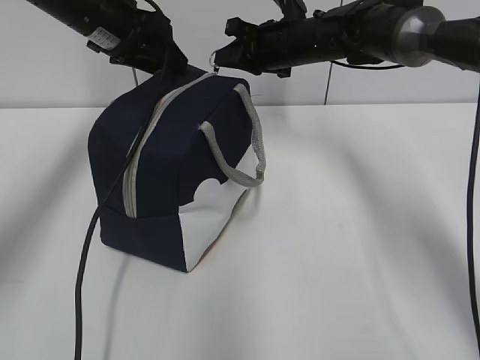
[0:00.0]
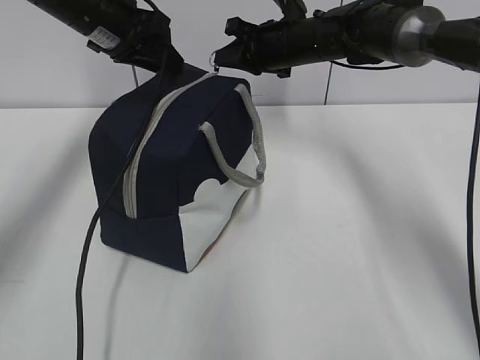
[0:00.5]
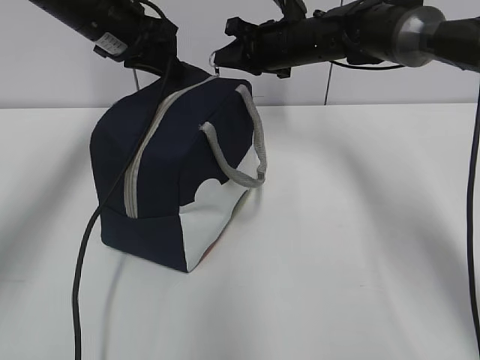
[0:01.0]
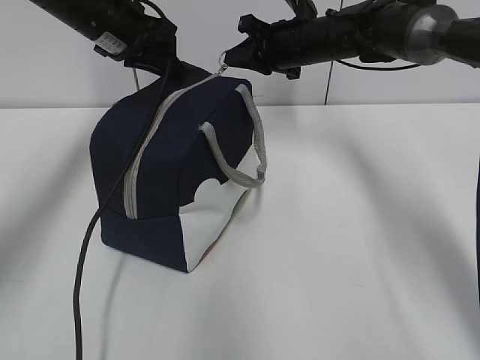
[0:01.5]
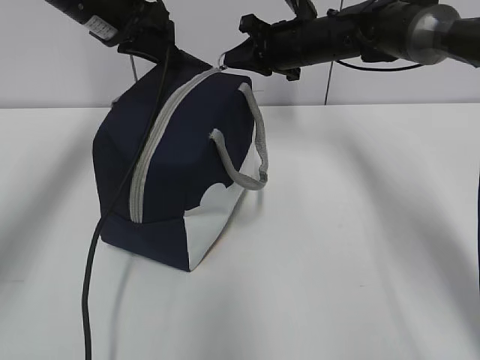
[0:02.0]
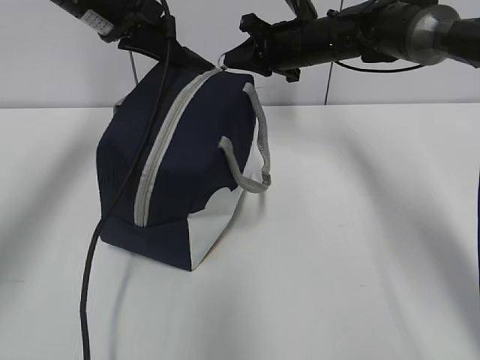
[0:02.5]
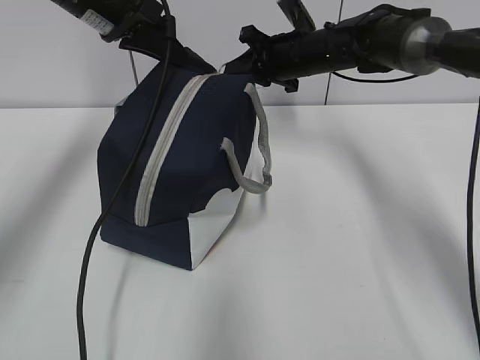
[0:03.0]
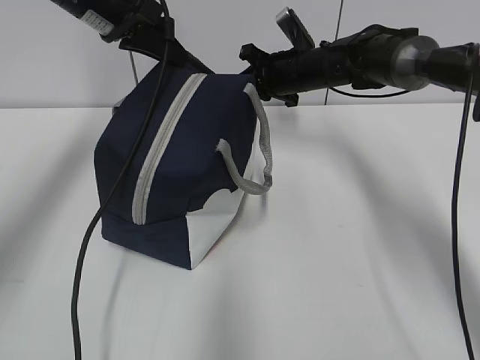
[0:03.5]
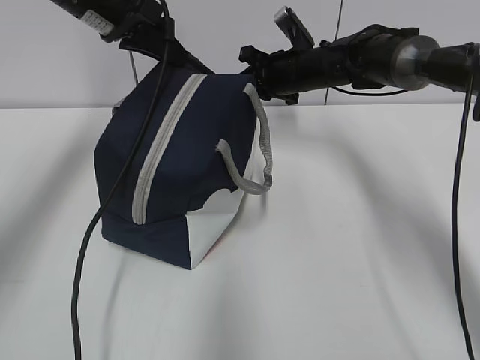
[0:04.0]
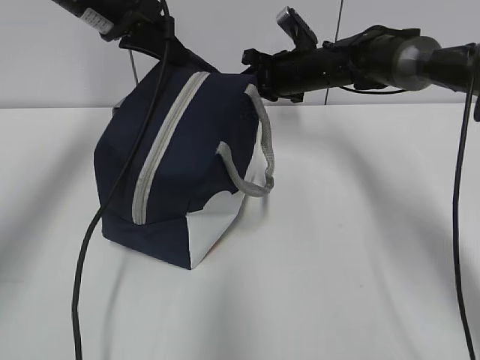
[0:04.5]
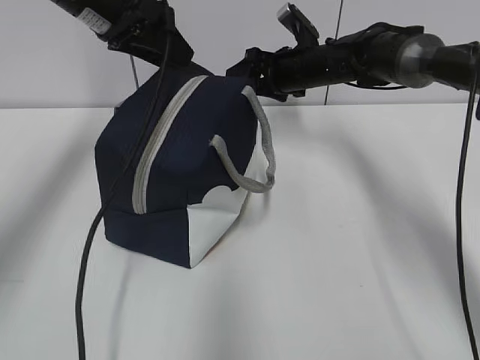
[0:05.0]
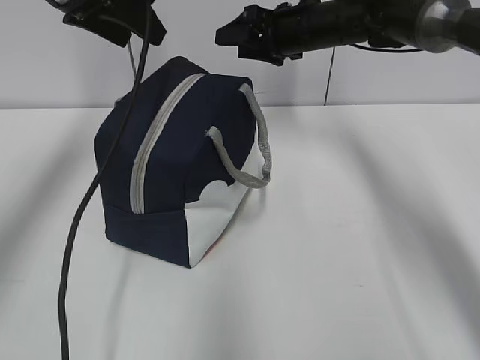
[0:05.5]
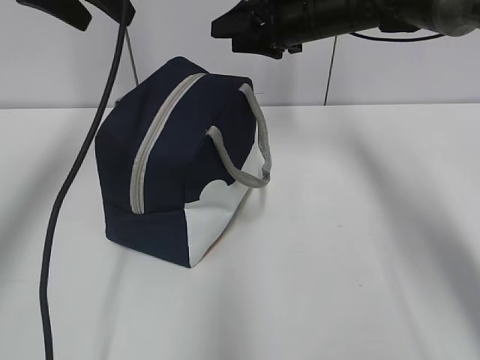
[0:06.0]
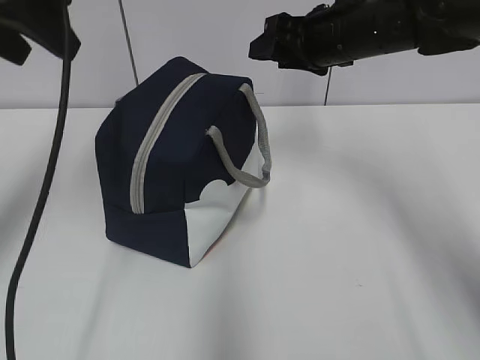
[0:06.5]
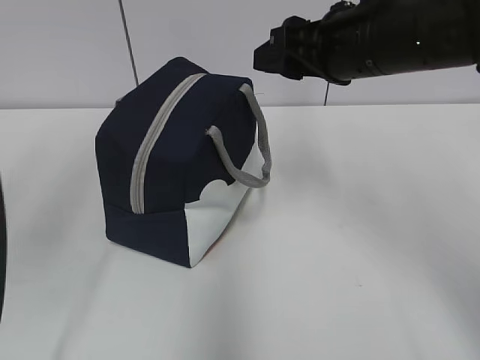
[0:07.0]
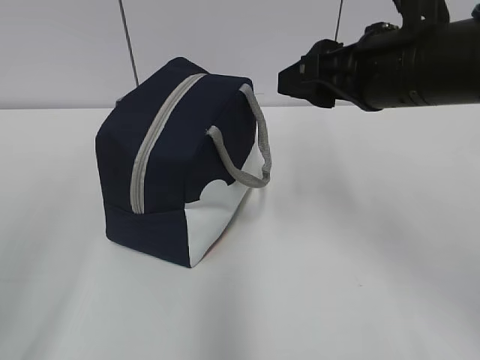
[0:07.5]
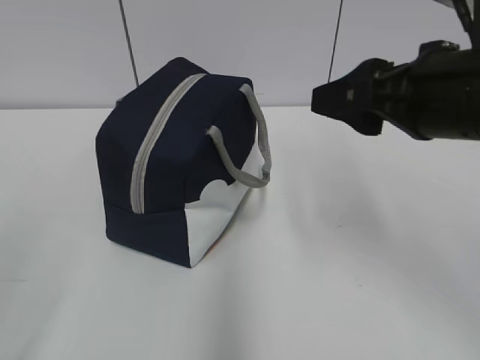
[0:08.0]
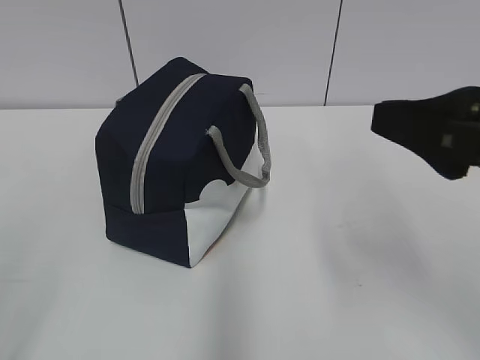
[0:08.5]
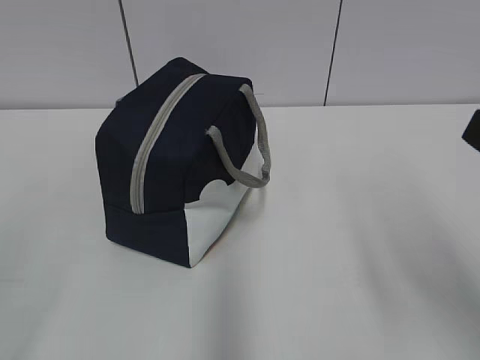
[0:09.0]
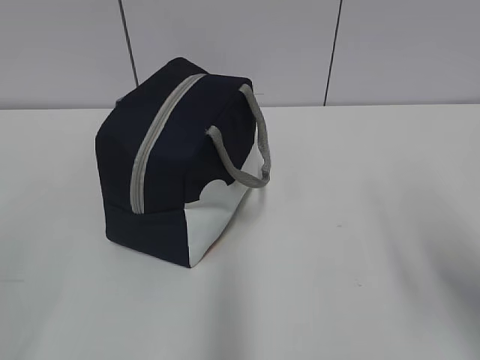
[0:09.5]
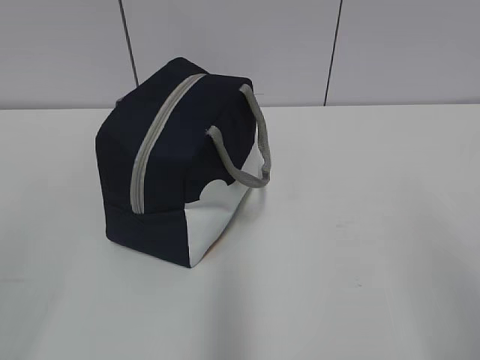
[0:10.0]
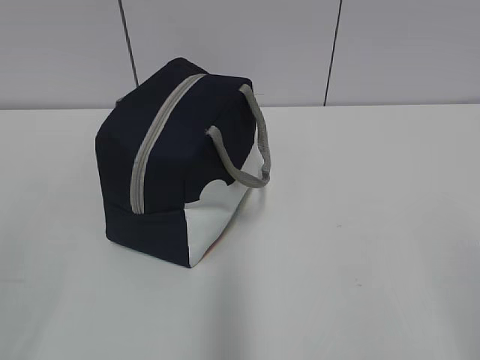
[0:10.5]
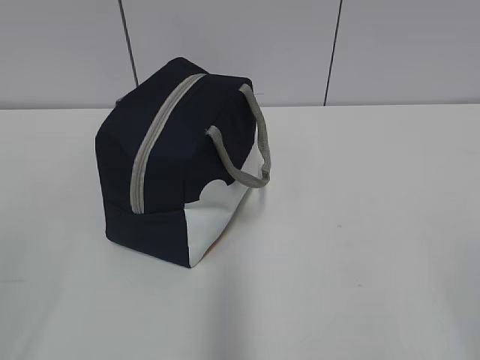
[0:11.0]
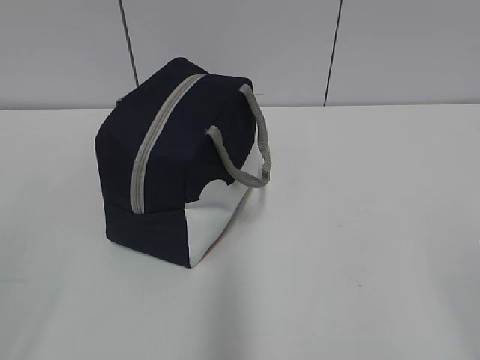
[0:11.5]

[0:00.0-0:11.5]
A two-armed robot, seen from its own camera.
Step, 0:00.0 to 0:04.5: Pull the zipper with your right hand.
0:00.0 to 0:02.0: The left gripper closes.
0:02.0 to 0:04.0: The grippers make only small movements.
0:04.0 to 0:06.0: Both grippers move upward, about 10 cm. The right gripper opens its fingers; the left gripper opens.
0:06.0 to 0:07.5: The grippers both shift backward by roughly 25 cm.
0:07.5 to 0:09.5: The left gripper moves backward, roughly 5 cm, while the right gripper heads backward and to the right, covering roughly 20 cm.
0:09.5 to 0:11.5: The right gripper heads backward, covering approximately 15 cm.

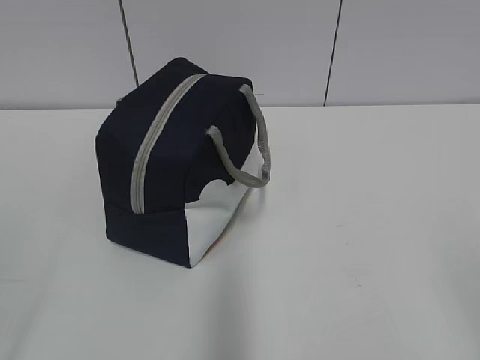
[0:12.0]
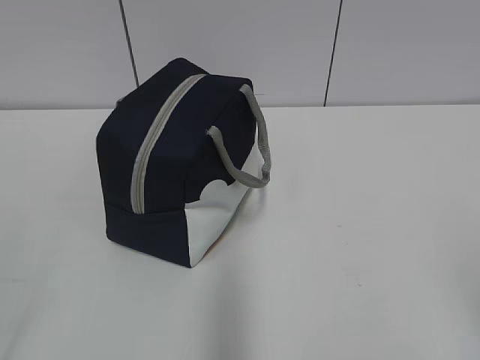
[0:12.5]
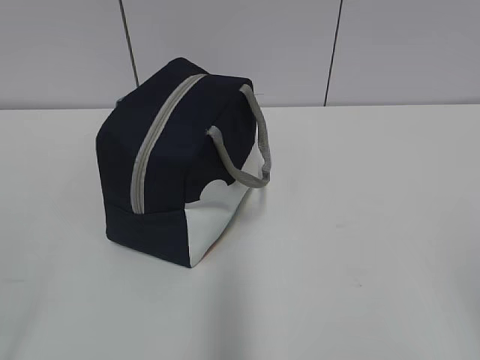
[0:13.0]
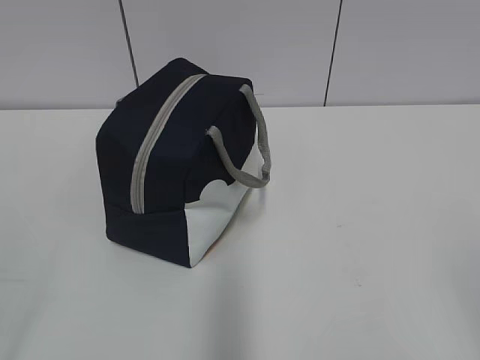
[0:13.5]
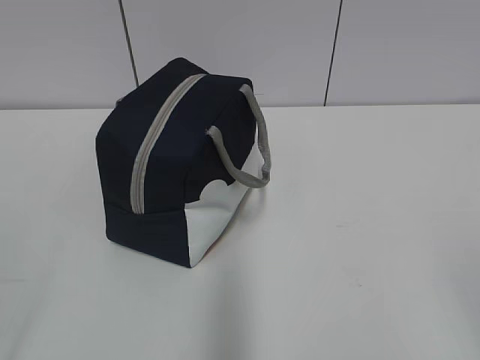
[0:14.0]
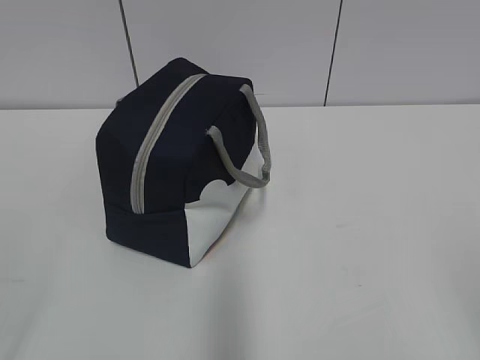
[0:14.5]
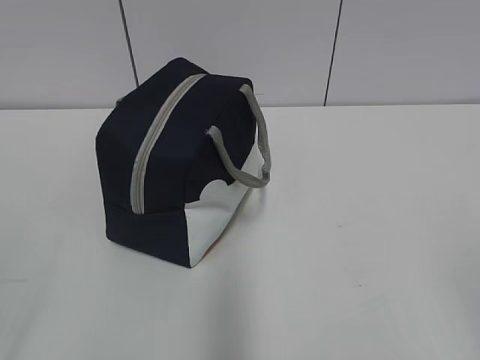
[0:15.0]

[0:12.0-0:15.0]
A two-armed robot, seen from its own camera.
0:13.5 to 0:15.0: The two grippers keep their place.

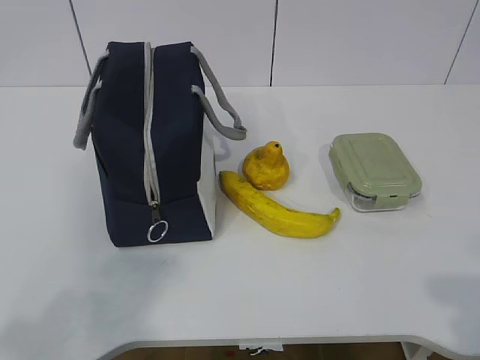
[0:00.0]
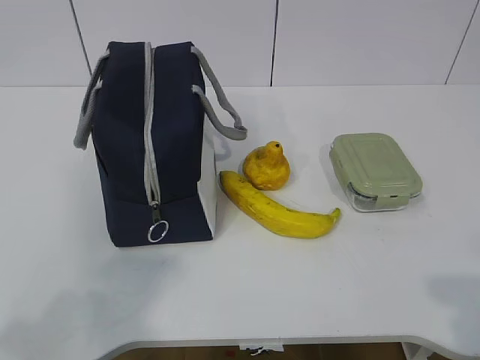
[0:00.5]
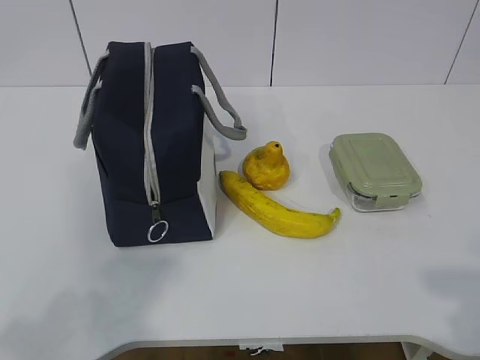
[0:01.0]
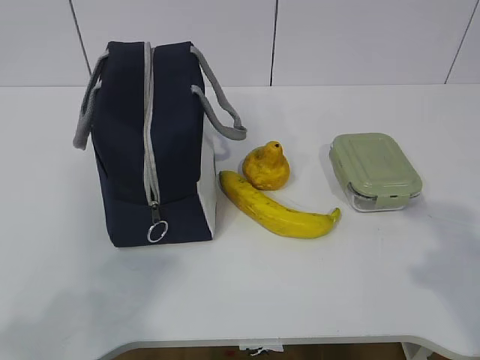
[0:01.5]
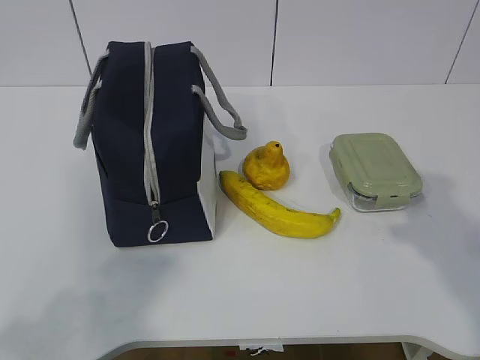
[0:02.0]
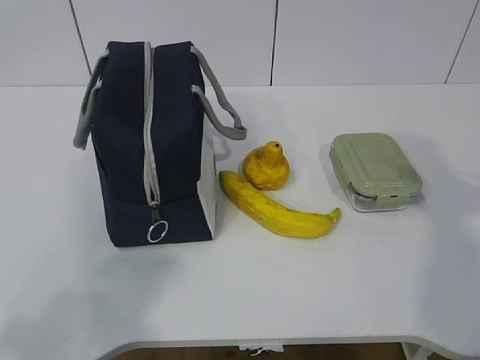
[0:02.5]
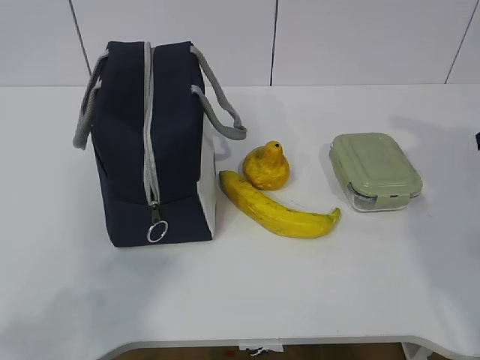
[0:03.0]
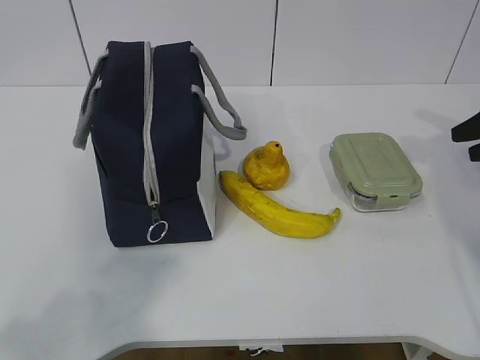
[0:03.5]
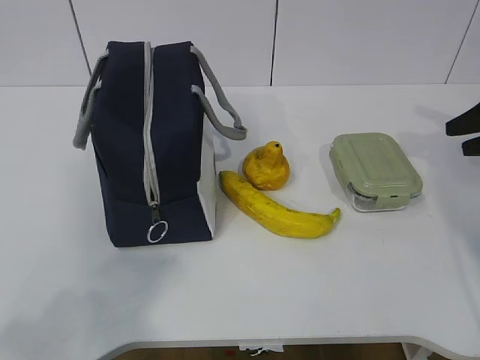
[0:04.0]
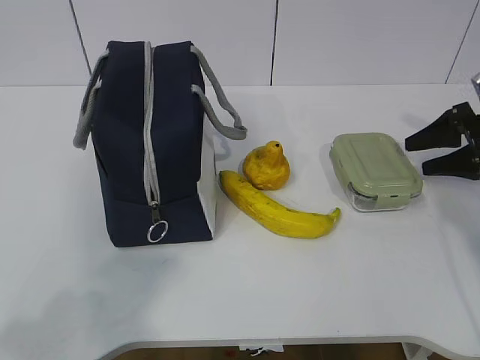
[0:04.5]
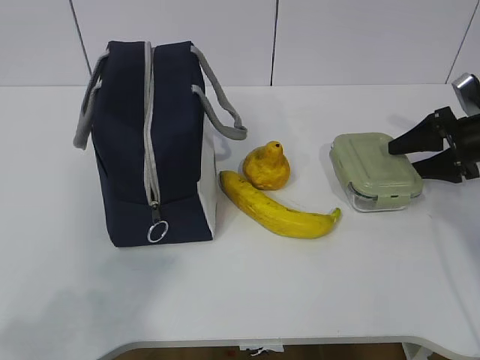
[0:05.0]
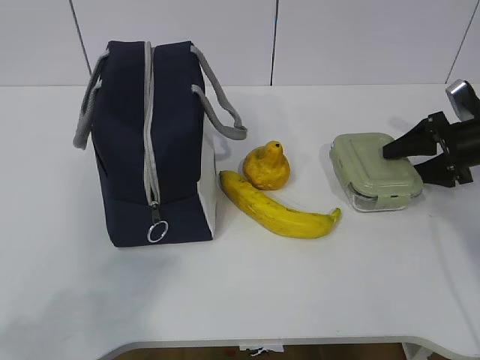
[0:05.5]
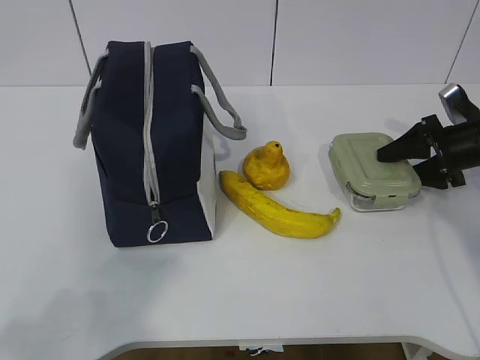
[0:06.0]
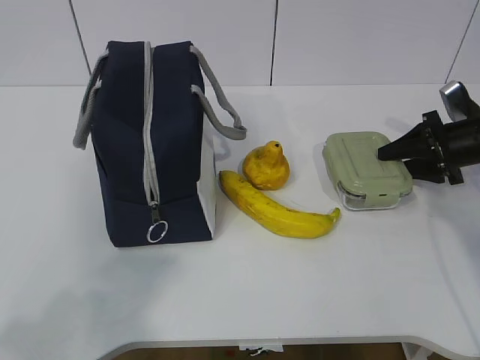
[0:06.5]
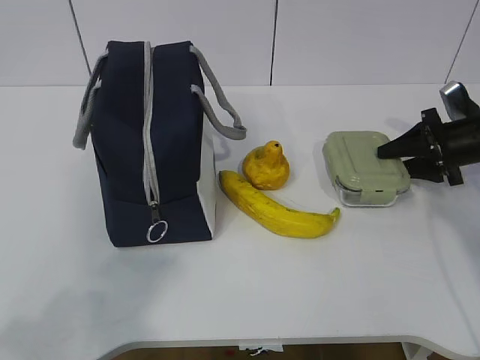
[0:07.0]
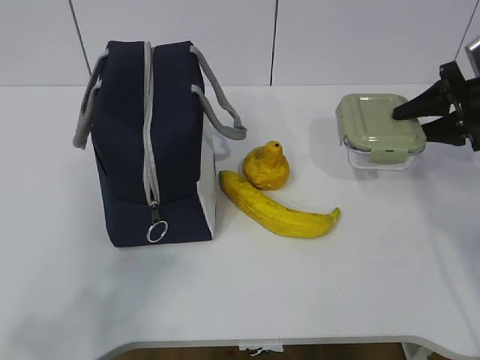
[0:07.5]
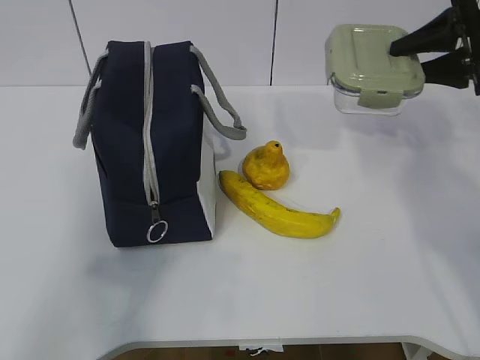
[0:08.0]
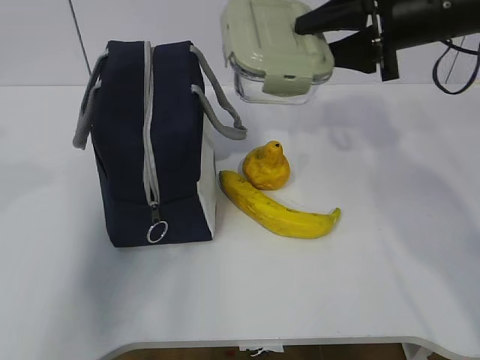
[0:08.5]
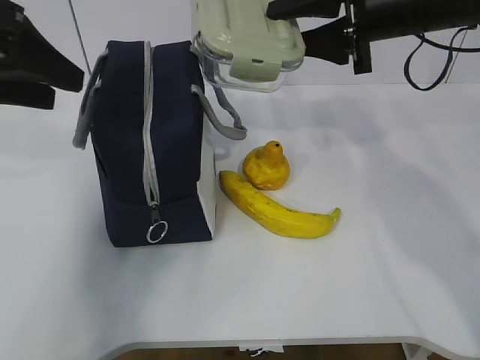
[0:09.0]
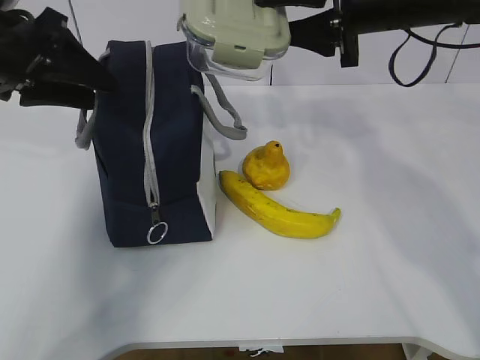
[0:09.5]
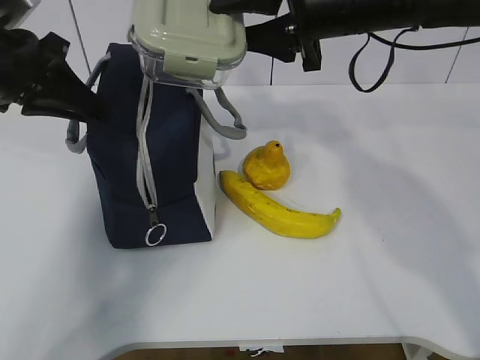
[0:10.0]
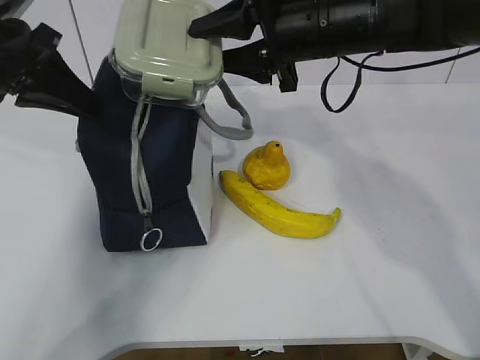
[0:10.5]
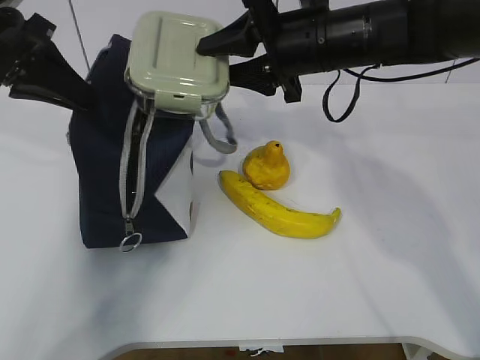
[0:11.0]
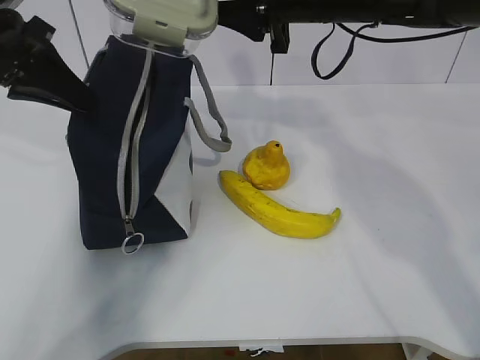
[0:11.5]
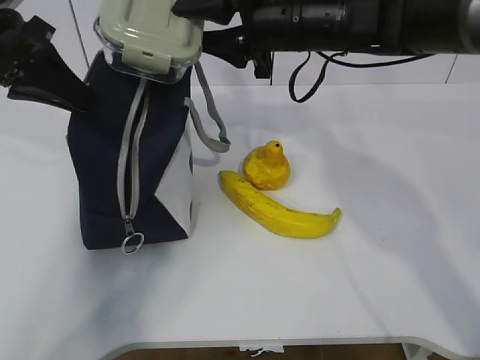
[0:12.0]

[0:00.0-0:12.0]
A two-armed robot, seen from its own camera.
Step, 0:00.0 to 0:05.5: Grab the lunch box with your right hand.
Step, 0:06.0 to 0:08.5: Grab the lunch bag with your left hand.
0:02.0 to 0:04.0: The right gripper heads forward and to the right, covering about 25 cm.
0:04.0 to 0:06.0: The right gripper heads downward and to the left, covering some 10 cm.
0:06.0 to 0:08.0: The right gripper travels upward by some 15 cm.
0:08.0 to 0:10.0: The left gripper goes approximately 30 cm forward, and closes up, while the right gripper goes roughly 20 cm to the left.
0:10.0 to 0:12.0: The right gripper ends up approximately 5 cm from where it was.
